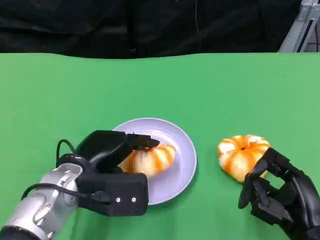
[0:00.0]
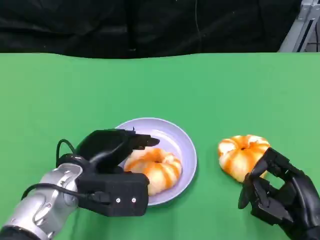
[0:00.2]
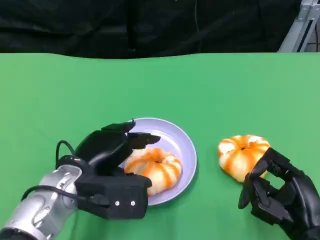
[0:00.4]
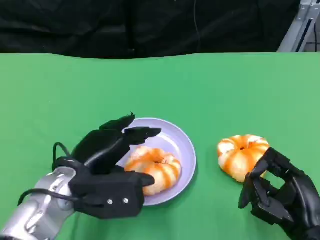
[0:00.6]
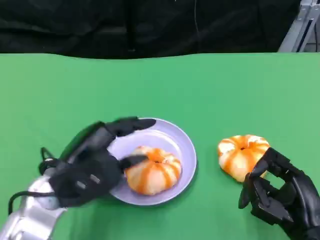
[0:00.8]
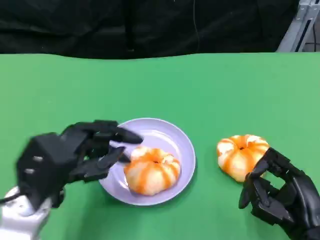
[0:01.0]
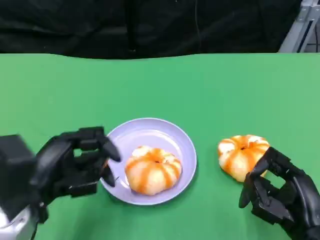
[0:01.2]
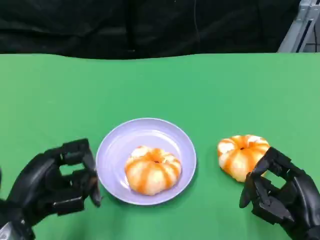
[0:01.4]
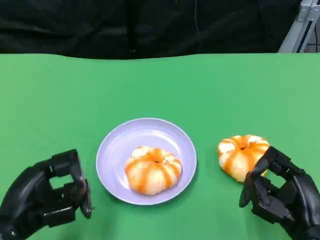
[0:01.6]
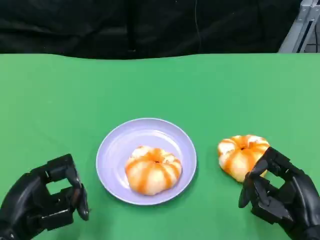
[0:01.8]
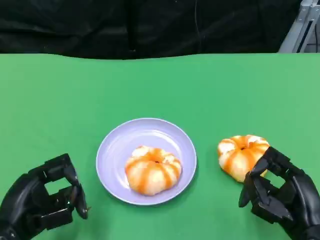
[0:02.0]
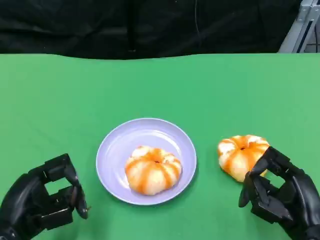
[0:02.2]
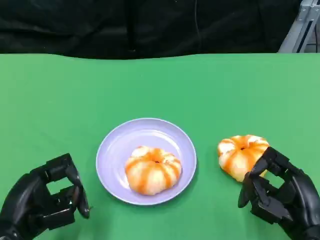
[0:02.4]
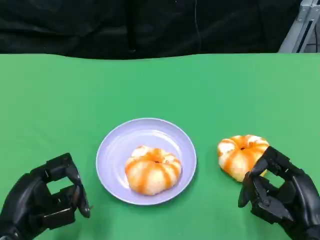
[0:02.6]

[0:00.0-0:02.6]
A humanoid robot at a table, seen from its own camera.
Task of the whole recording: Grasp the bread from the table and place it into the plate.
0:00.0 to 0:01.2: The left hand heads to the left and backward, covering roughly 10 cm.
0:01.2 to 0:02.6: The hands make only small movements.

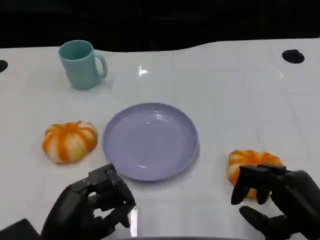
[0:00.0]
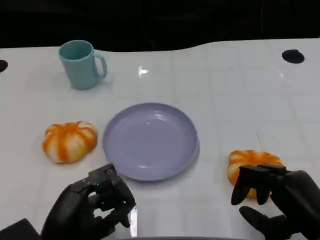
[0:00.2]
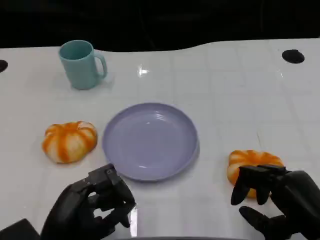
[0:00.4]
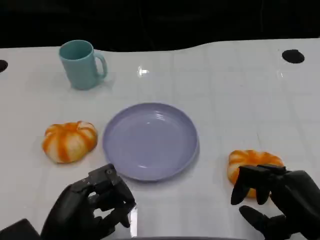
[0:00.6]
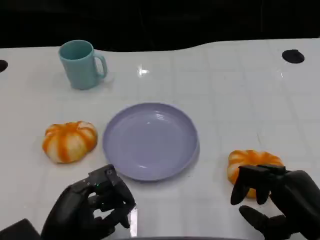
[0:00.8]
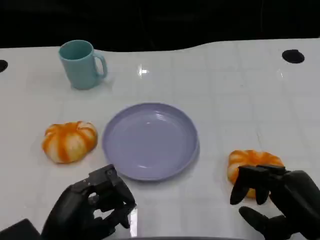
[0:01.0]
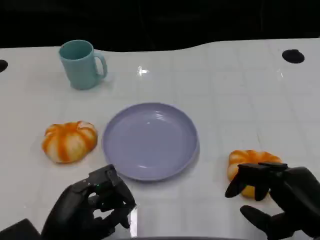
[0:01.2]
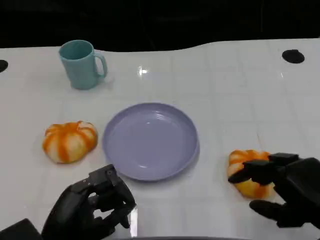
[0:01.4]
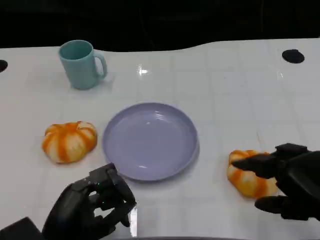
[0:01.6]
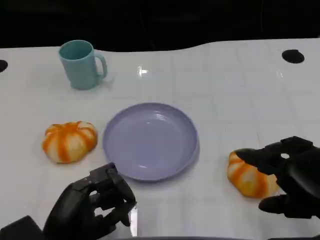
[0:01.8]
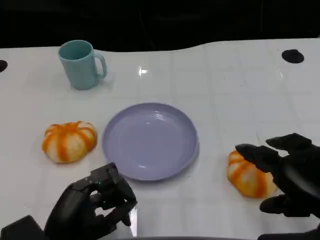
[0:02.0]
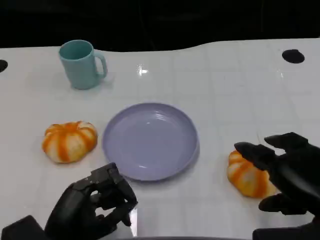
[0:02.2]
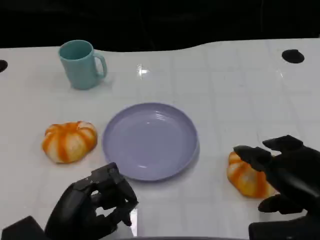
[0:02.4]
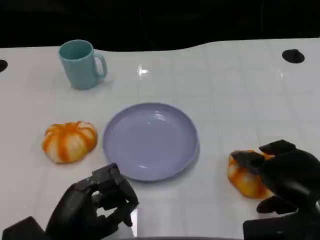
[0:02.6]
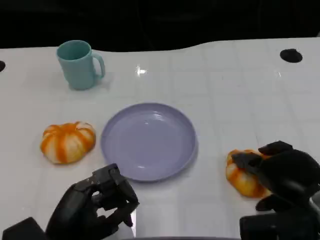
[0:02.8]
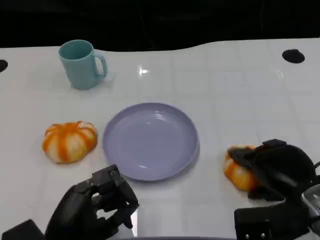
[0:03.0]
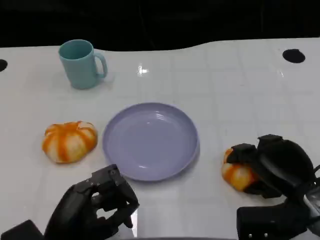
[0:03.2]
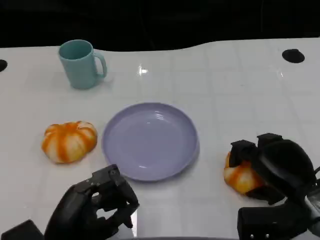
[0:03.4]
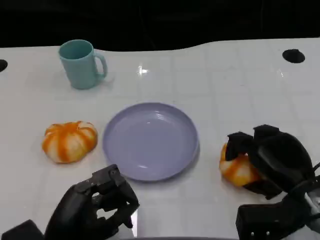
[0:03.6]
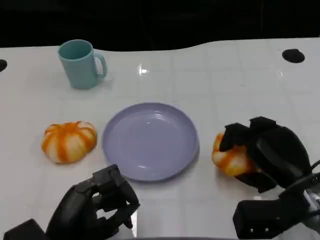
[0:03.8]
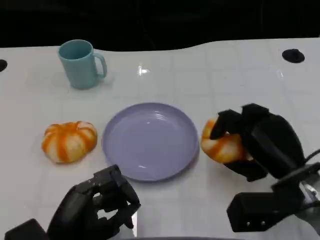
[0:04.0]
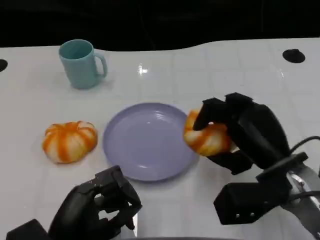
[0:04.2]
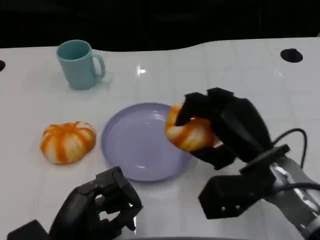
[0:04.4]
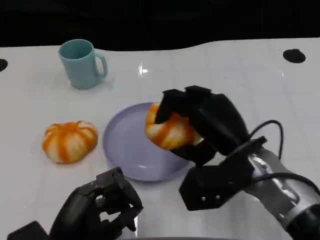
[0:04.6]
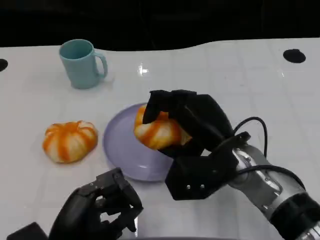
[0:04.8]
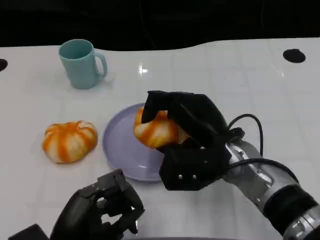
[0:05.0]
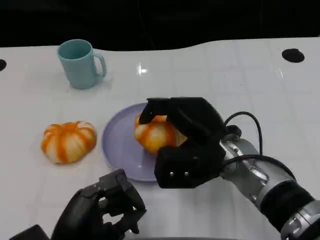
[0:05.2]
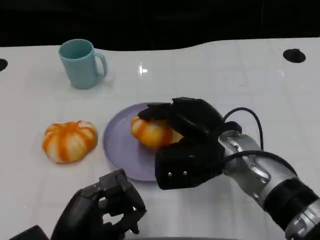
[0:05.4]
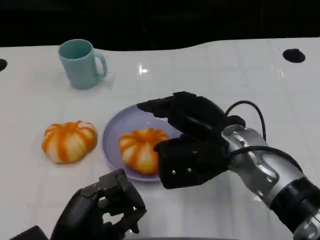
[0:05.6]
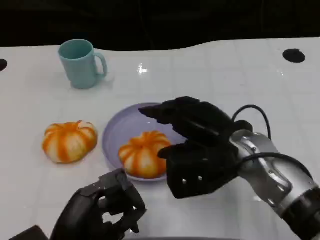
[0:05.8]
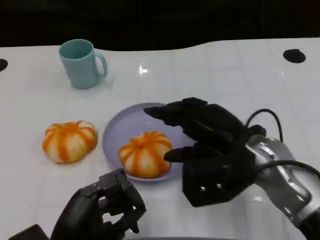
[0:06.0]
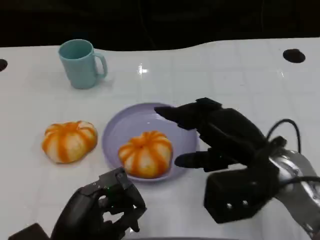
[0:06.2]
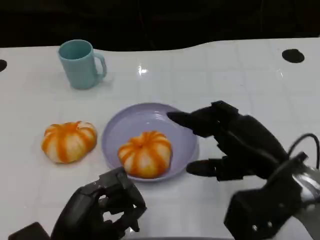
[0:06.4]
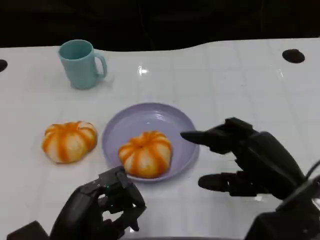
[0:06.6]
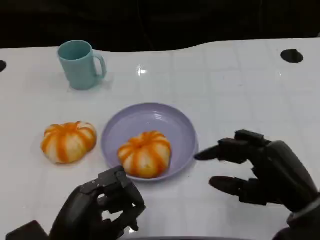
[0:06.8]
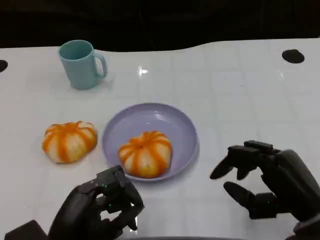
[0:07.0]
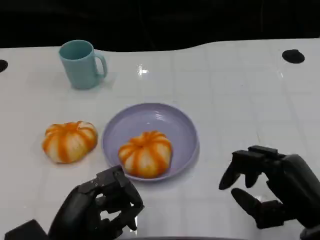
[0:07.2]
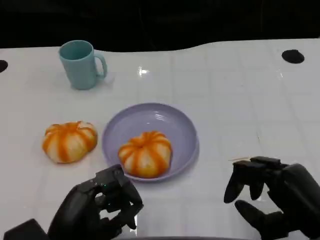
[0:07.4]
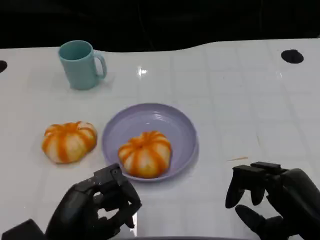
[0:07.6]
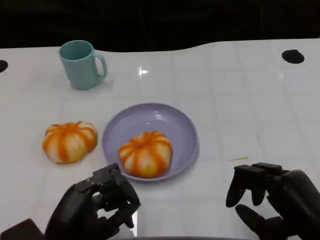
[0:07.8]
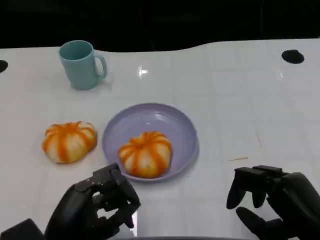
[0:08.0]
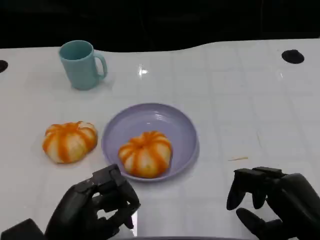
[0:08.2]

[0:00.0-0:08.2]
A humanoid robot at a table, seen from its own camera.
Task of the whole recording: Grasp the bread from the table and place it into the plate.
0:00.0 to 0:01.6: The right hand goes approximately 5 cm upward.
0:01.6 to 0:03.2: The right hand is displaced downward and forward by roughly 10 cm.
0:03.2 to 0:05.0: The right hand shifts approximately 15 cm to the left.
0:05.0 to 0:06.6: The right hand travels to the right and backward by roughly 15 cm.
0:06.6 to 0:08.2: The right hand ends up roughly 5 cm from where it was.
